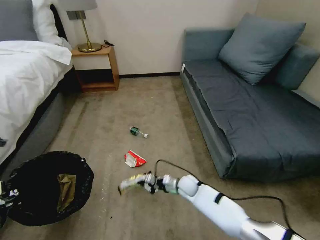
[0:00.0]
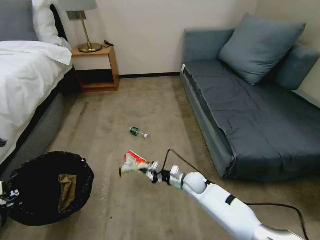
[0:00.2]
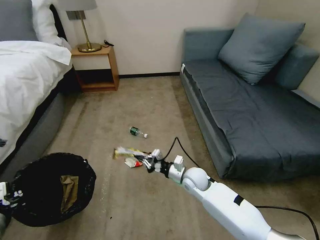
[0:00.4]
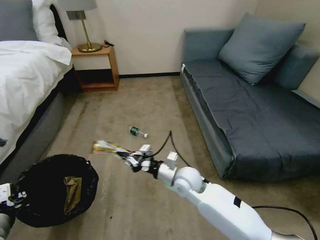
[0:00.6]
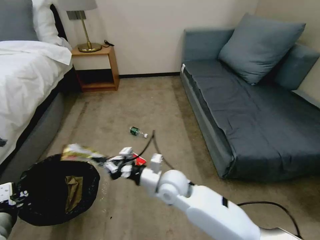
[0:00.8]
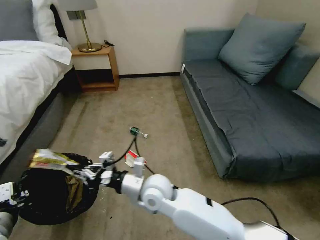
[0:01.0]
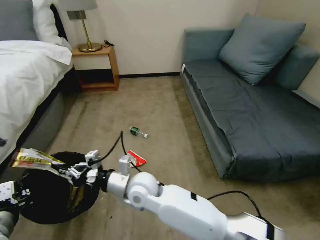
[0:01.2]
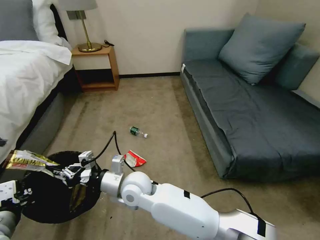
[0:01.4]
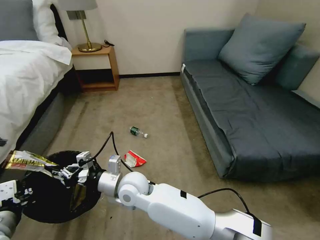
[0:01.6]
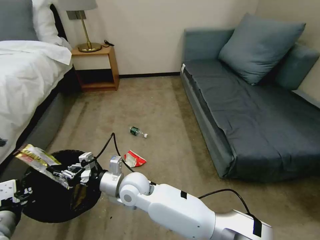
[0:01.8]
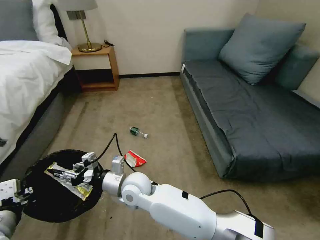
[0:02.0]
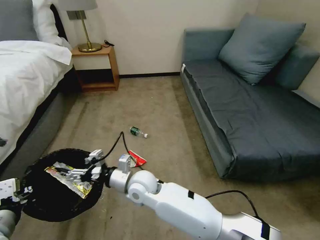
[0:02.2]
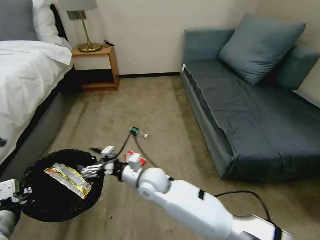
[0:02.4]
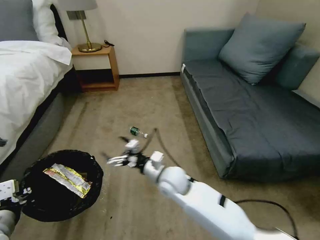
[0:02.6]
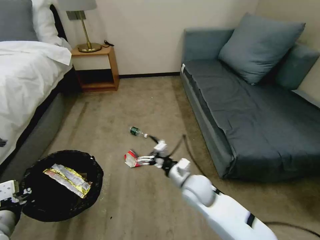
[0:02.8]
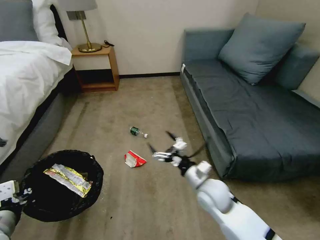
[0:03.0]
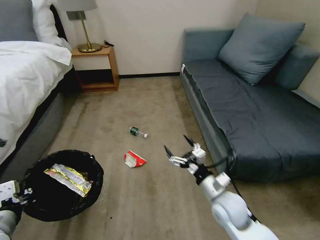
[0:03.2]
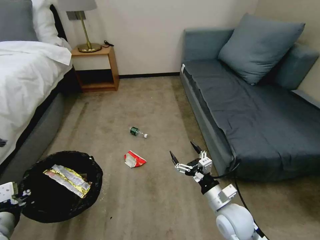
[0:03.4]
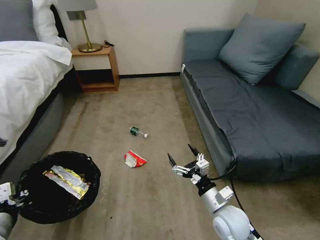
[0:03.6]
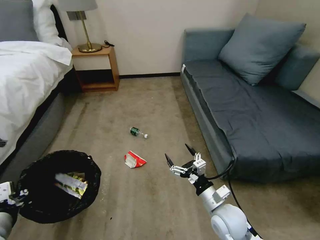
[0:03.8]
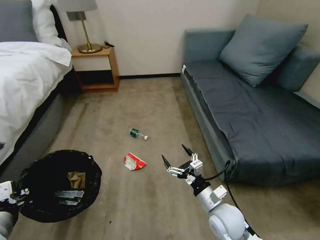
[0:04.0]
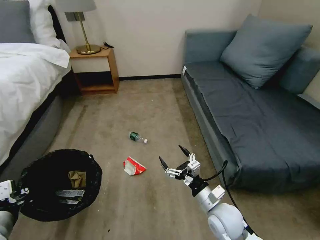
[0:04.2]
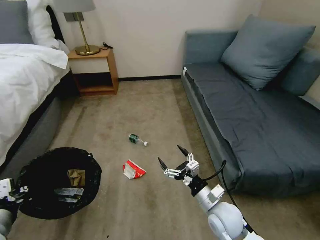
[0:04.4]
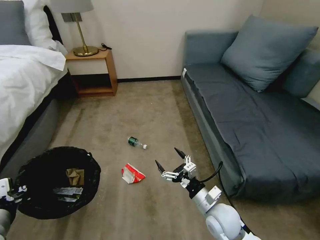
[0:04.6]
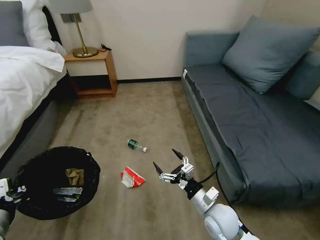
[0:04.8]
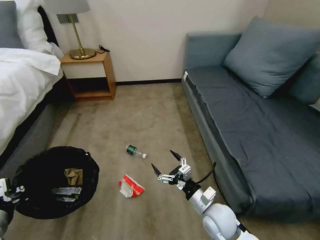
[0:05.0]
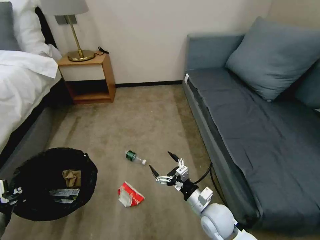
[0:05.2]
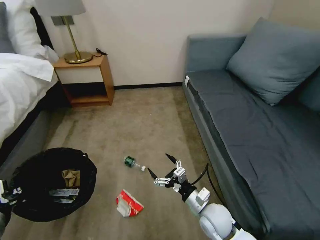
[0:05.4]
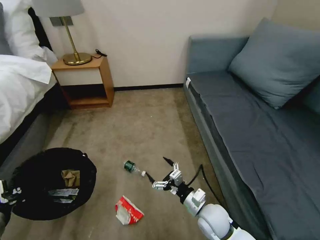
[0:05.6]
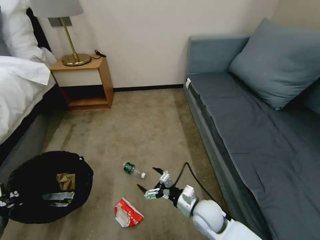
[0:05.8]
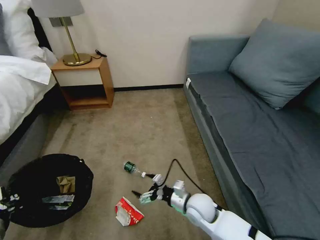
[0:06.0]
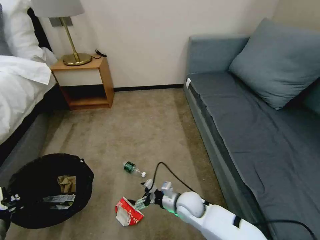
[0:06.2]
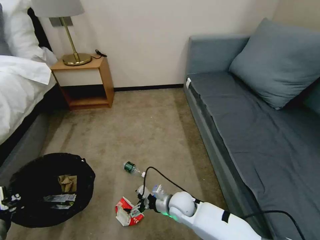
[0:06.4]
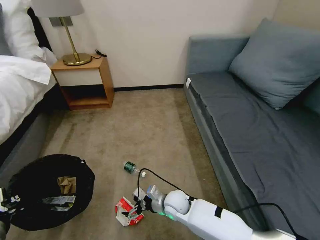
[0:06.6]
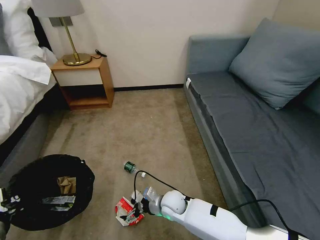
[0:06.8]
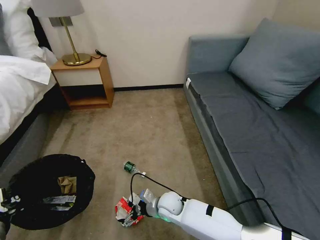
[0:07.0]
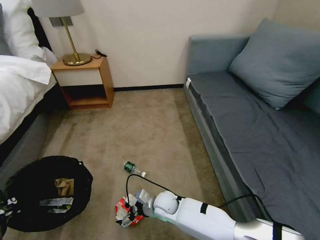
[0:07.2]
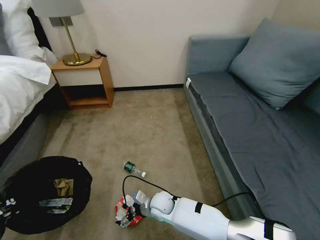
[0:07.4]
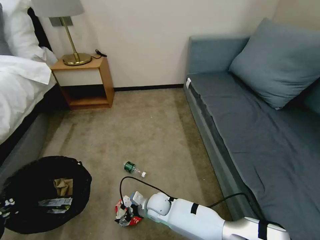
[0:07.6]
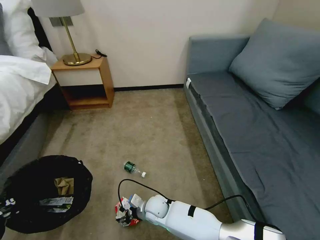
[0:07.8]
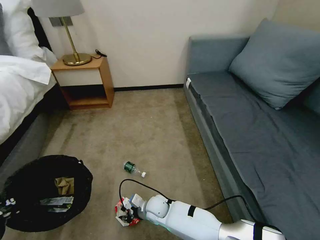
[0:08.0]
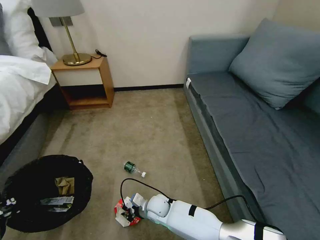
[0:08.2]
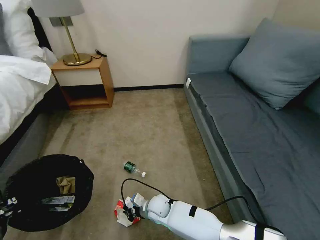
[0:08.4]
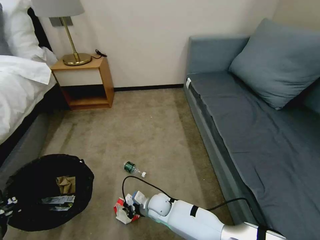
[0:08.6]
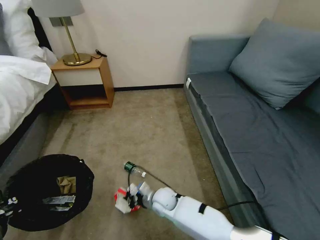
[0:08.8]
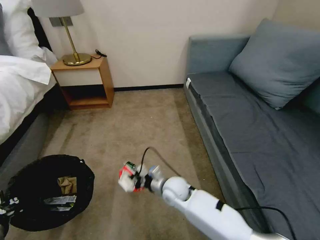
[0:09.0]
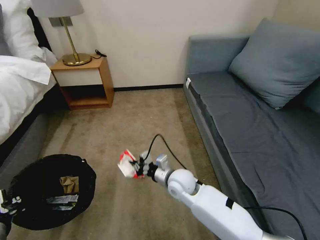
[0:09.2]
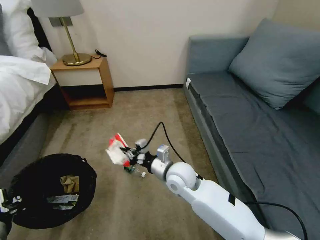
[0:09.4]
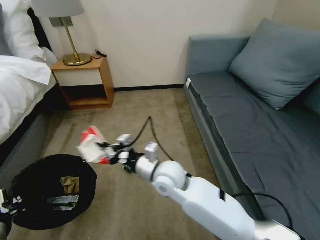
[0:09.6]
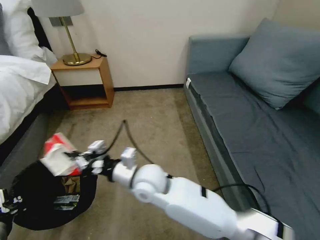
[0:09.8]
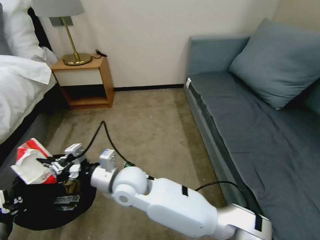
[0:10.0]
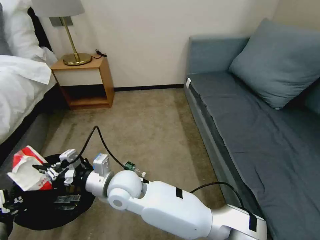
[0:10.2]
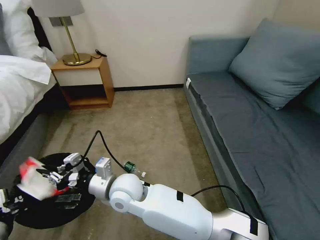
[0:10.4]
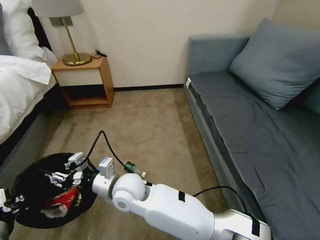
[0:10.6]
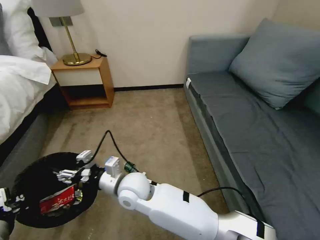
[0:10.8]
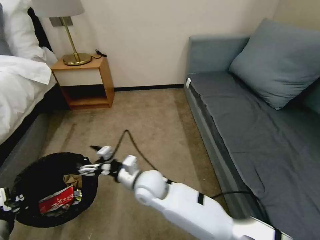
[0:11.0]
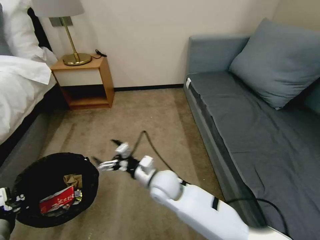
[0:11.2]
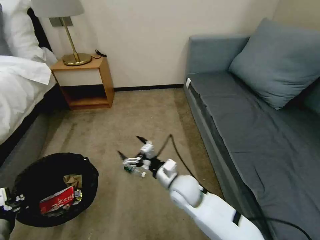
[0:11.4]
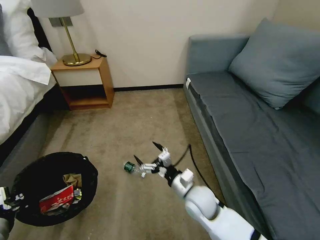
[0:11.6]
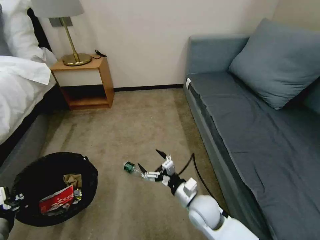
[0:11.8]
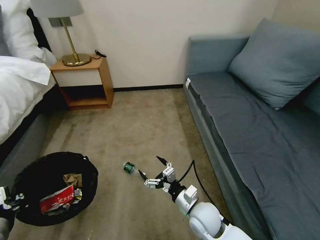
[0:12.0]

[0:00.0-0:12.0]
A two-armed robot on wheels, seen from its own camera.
Task of the whole recording: Pick up the trash bin, then pick up the garbage on the floor and place it into the trash bin.
0:00.0 to 0:01.6: The right gripper travels to the left, upward and backward by about 30 cm.
0:01.6 to 0:03.0: The right gripper moves to the right, approximately 25 cm, and opens its fingers.
0:03.0 to 0:04.4: The right gripper shifts roughly 5 cm backward.
0:04.4 to 0:06.0: The right gripper shifts some 5 cm to the left.
0:06.0 to 0:07.6: The right gripper heads to the left and downward, covering about 15 cm.
0:07.6 to 0:09.0: The right gripper goes about 10 cm upward and to the right, and closes up.
0:09.0 to 0:10.4: The right gripper heads to the left and upward, covering some 20 cm.
0:10.4 to 0:12.0: The right gripper goes about 30 cm to the right and downward, and opens.

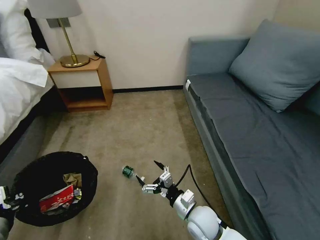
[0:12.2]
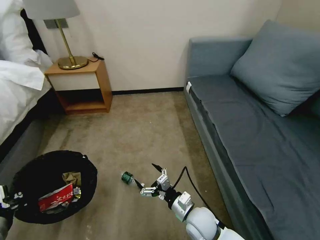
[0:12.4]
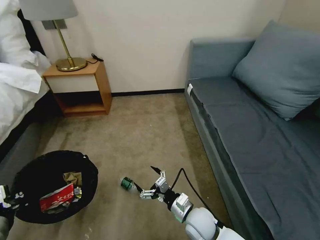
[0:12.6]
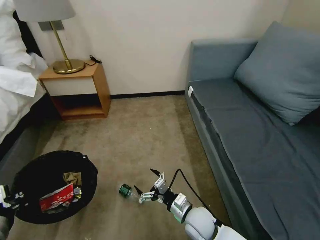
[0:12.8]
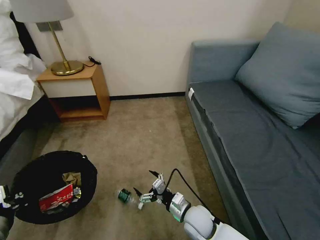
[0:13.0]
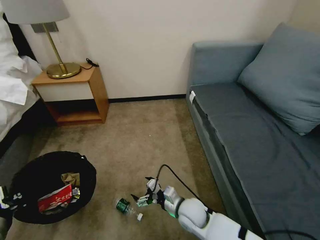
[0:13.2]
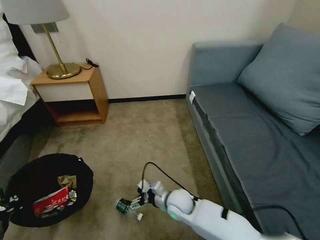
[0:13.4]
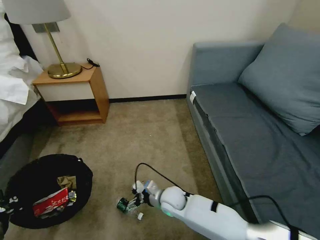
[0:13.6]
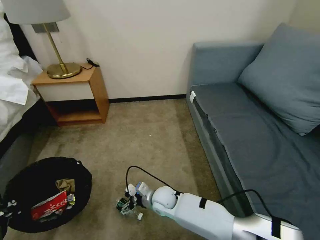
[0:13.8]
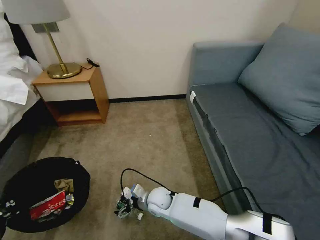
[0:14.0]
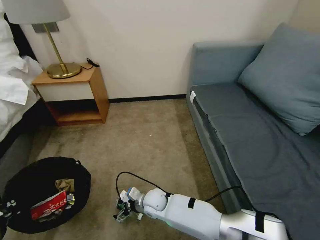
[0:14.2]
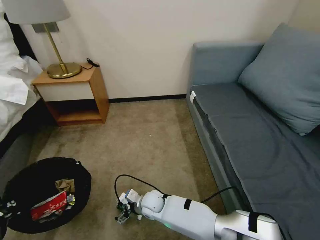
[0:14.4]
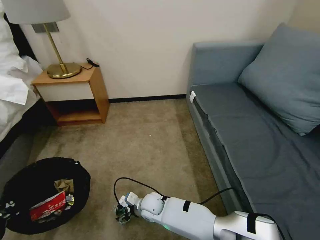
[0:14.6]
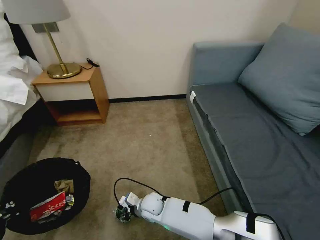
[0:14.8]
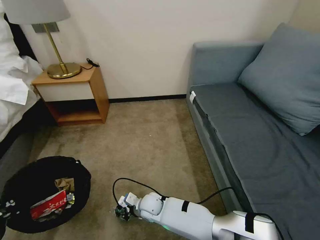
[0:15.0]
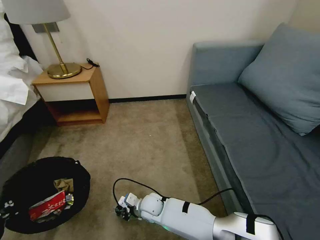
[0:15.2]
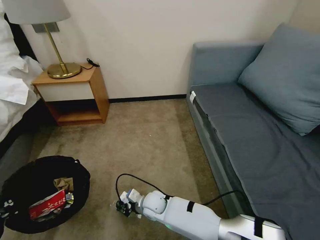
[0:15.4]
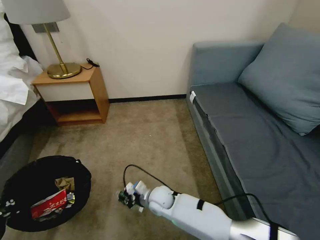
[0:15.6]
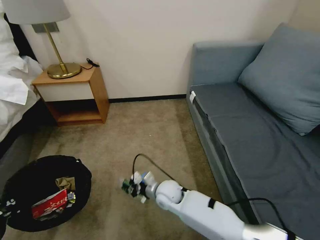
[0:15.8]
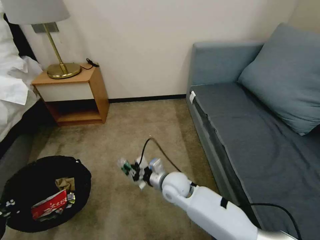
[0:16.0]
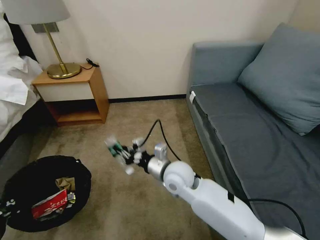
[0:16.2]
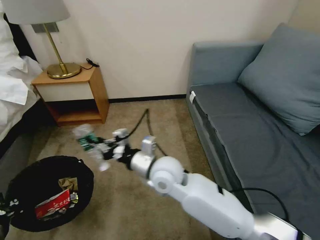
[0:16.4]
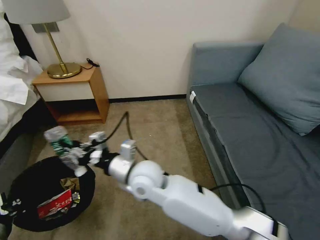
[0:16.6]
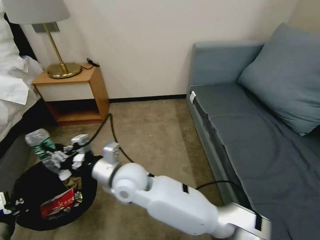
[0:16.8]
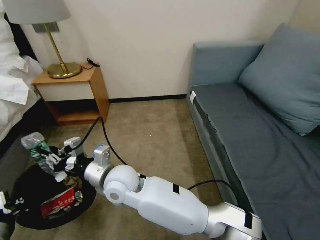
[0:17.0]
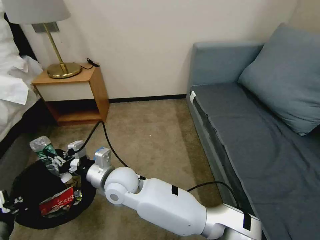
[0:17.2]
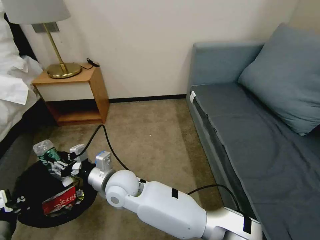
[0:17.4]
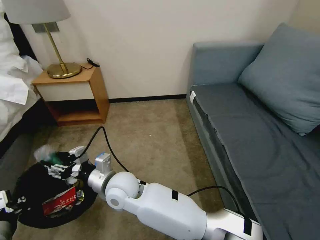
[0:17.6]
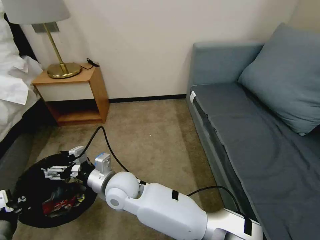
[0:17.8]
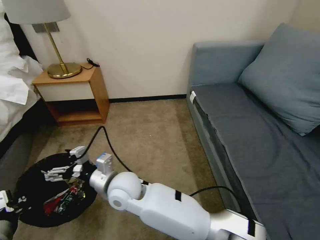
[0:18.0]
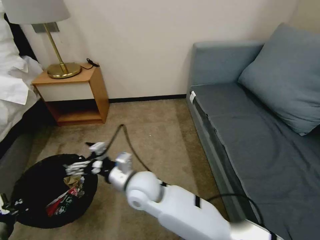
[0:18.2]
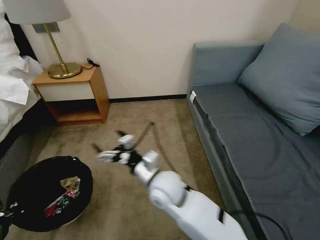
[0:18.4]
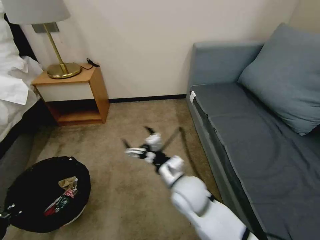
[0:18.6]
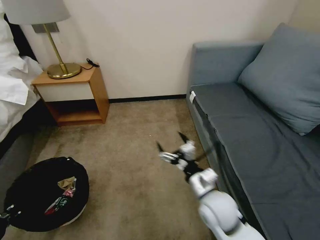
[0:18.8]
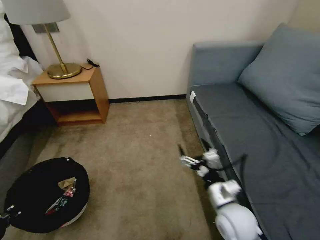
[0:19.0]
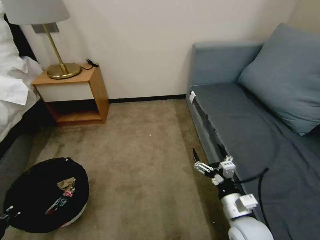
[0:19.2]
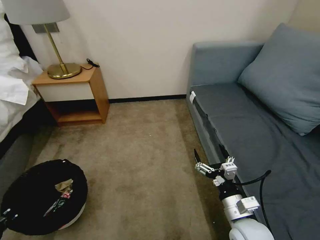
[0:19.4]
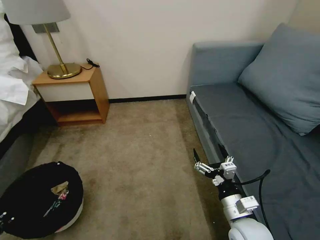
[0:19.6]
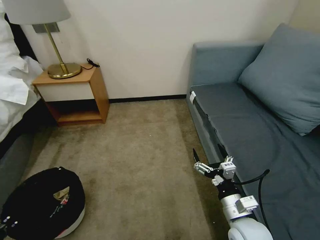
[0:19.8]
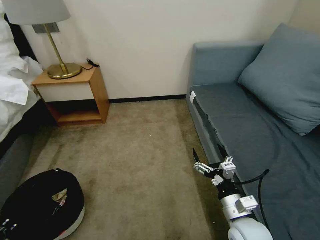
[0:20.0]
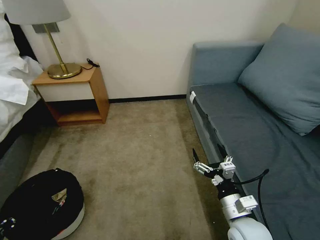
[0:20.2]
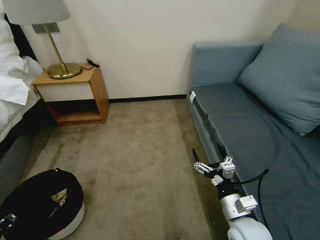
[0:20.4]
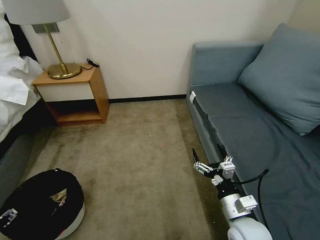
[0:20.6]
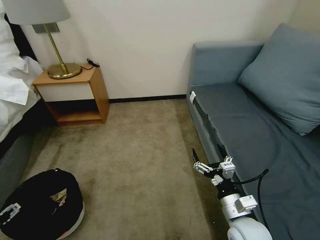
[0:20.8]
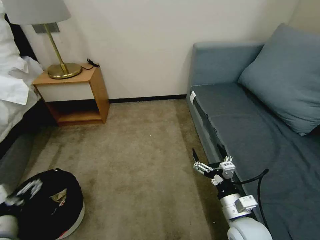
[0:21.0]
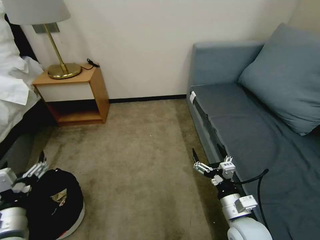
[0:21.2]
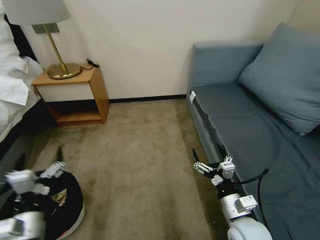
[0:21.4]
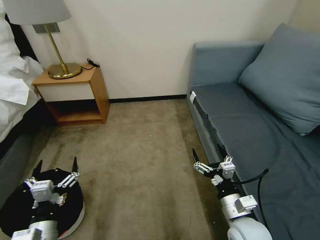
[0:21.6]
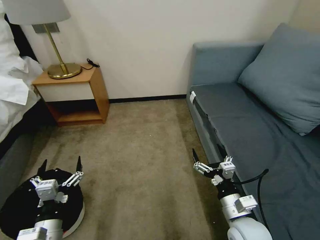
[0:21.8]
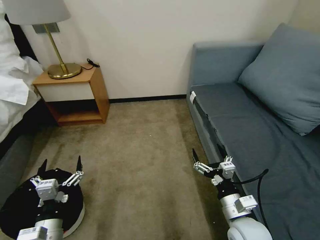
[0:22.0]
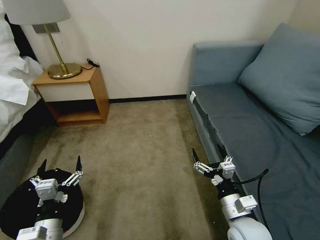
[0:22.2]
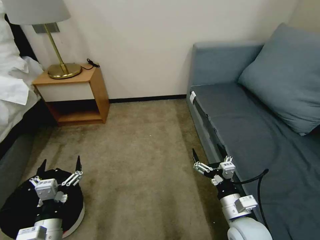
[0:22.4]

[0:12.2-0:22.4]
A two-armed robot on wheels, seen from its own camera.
Task of the whole recording: Pick up the trash bin, then pick up the garbage on the floor and place it into the trash bin.
0:12.2 to 0:13.6: The right gripper moves to the left and forward, roughly 10 cm.
0:13.6 to 0:15.2: The right gripper is displaced to the left by about 10 cm, and closes up.
0:15.2 to 0:16.6: The right gripper moves upward, roughly 25 cm.
0:16.6 to 0:18.0: The right gripper goes about 10 cm to the left, and opens its fingers.
0:18.0 to 0:19.4: The right gripper moves to the right, about 35 cm. Meanwhile the left gripper moves to the left, approximately 10 cm.
0:19.4 to 0:21.0: The left gripper travels to the right by roughly 10 cm, and opens up.
0:21.0 to 0:22.4: The left gripper travels to the right by about 10 cm.
